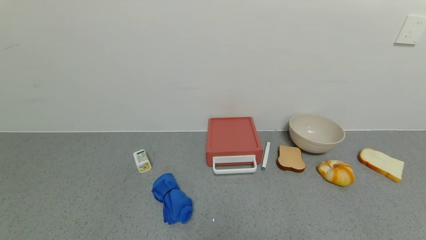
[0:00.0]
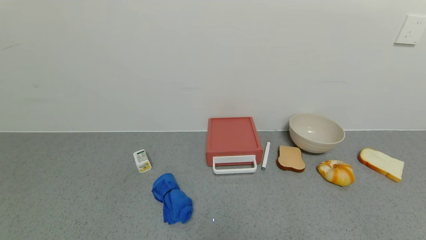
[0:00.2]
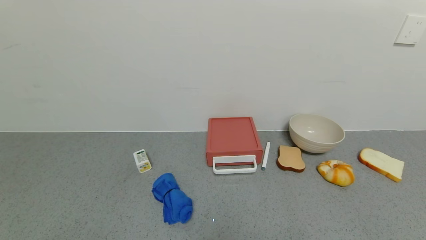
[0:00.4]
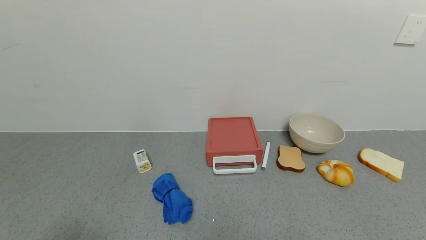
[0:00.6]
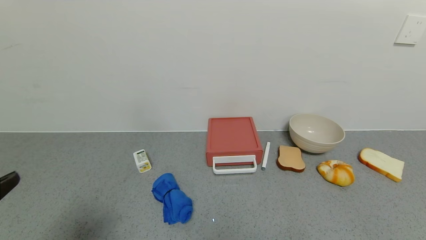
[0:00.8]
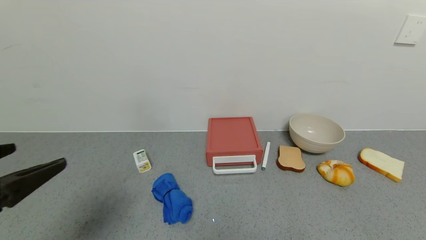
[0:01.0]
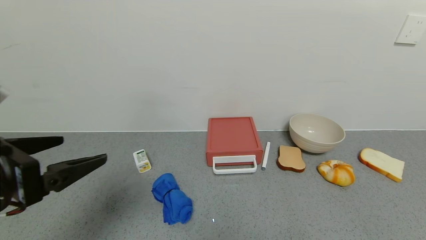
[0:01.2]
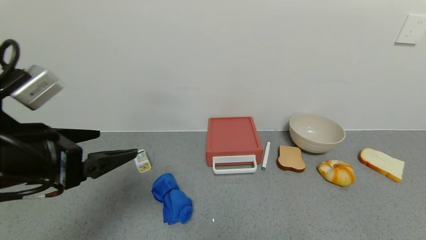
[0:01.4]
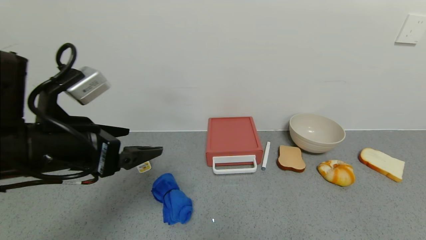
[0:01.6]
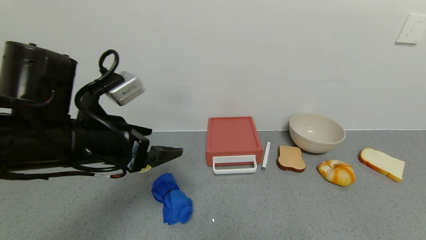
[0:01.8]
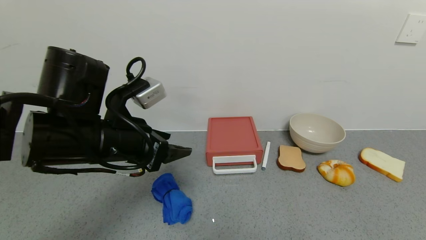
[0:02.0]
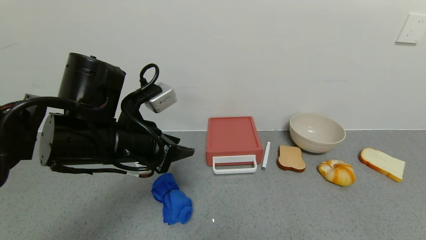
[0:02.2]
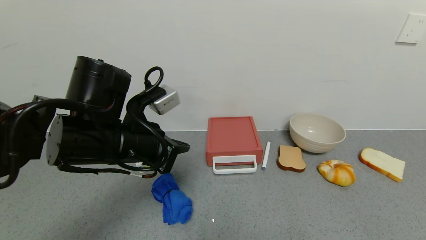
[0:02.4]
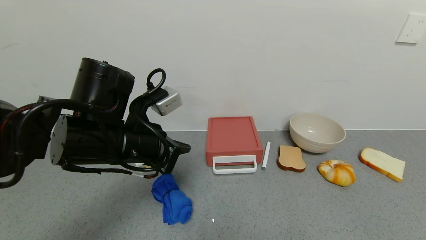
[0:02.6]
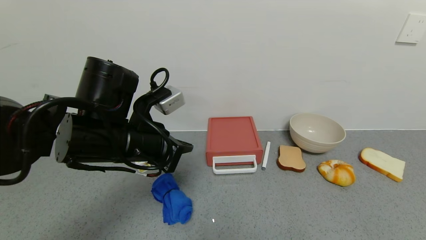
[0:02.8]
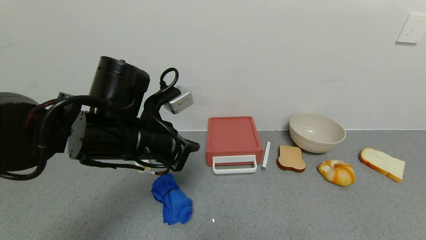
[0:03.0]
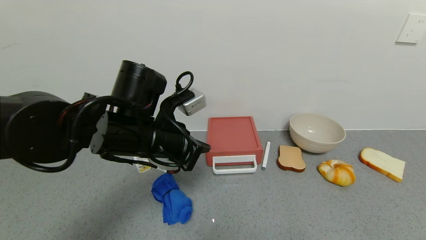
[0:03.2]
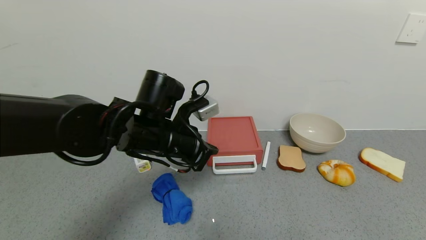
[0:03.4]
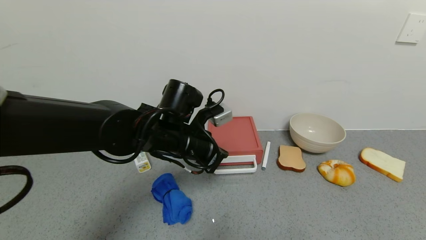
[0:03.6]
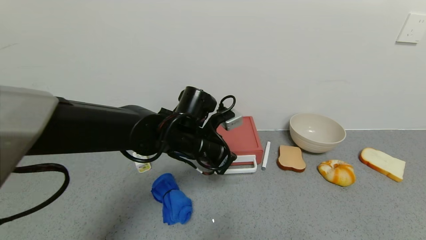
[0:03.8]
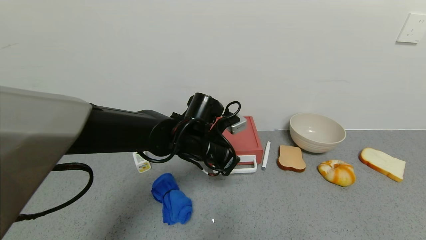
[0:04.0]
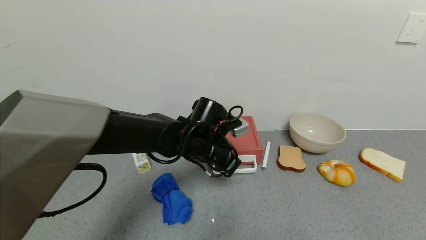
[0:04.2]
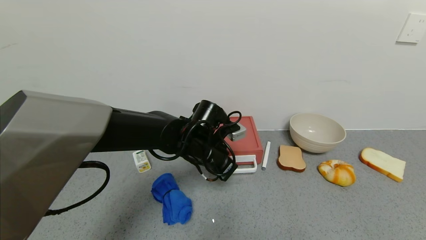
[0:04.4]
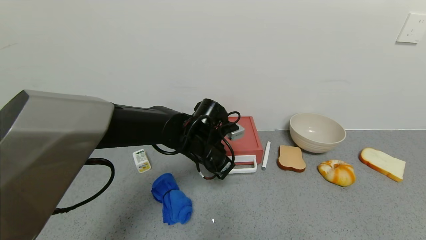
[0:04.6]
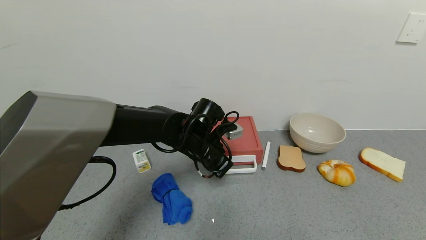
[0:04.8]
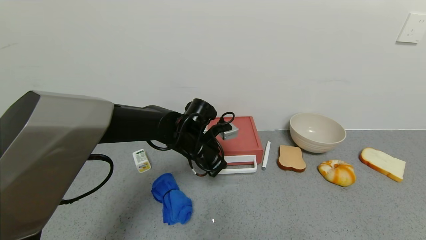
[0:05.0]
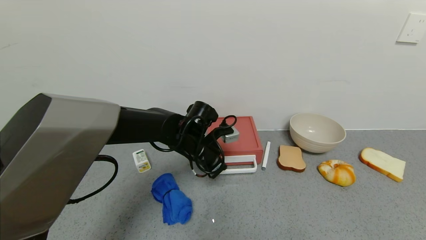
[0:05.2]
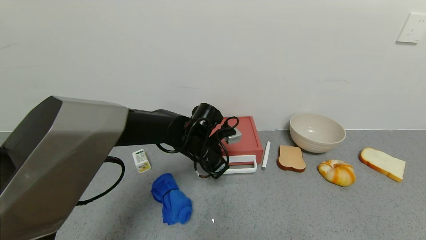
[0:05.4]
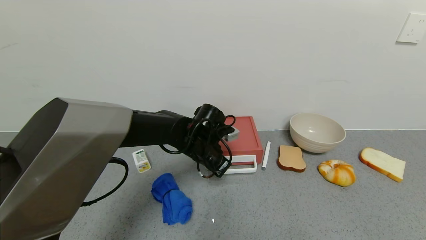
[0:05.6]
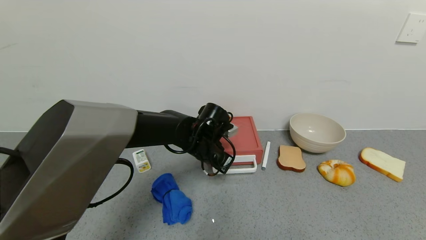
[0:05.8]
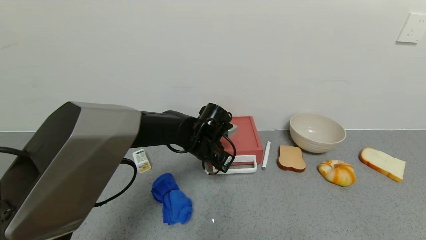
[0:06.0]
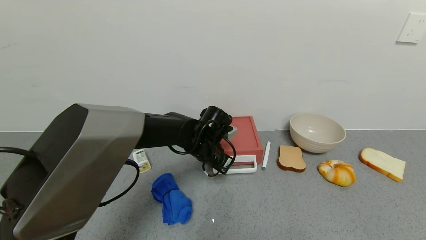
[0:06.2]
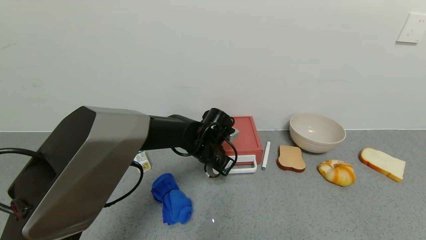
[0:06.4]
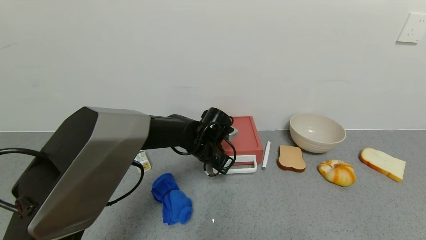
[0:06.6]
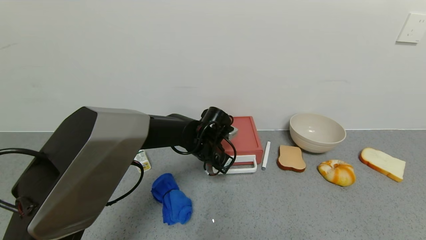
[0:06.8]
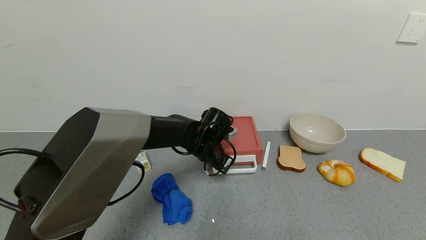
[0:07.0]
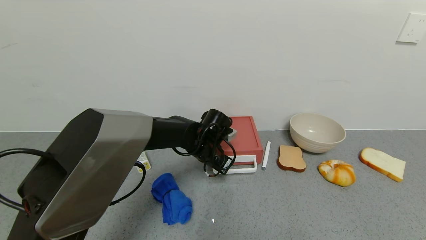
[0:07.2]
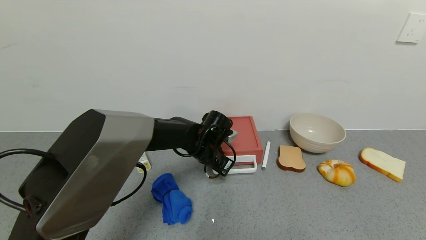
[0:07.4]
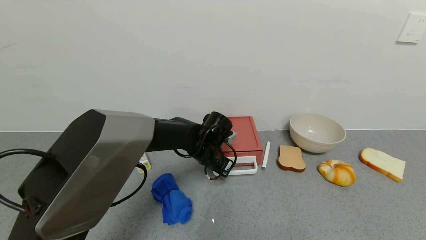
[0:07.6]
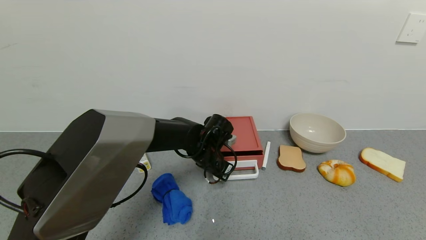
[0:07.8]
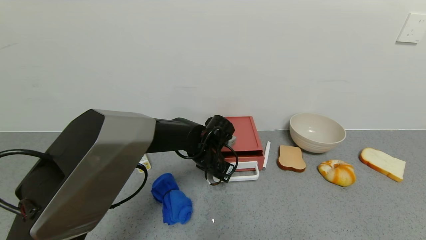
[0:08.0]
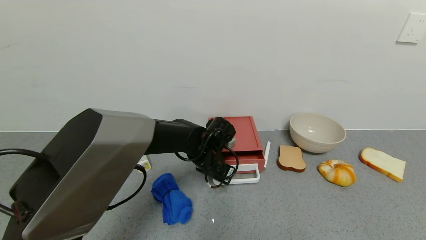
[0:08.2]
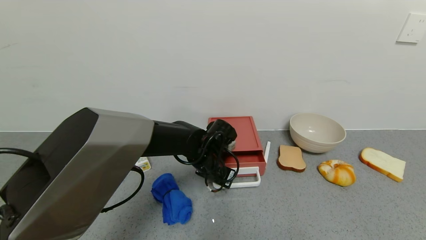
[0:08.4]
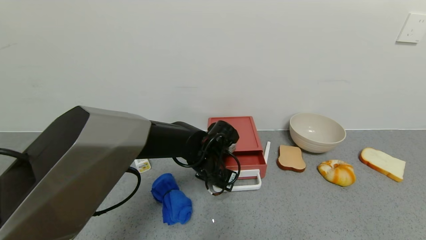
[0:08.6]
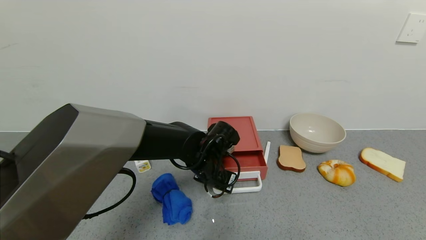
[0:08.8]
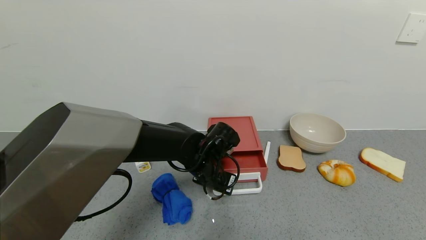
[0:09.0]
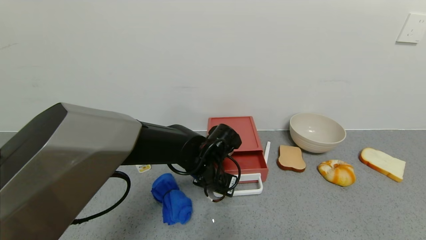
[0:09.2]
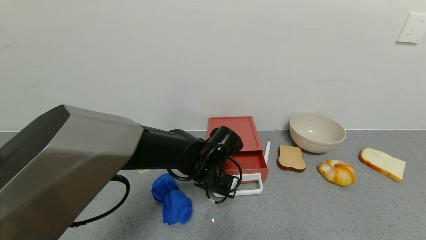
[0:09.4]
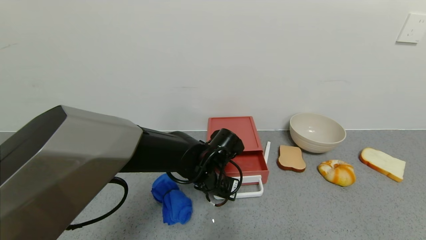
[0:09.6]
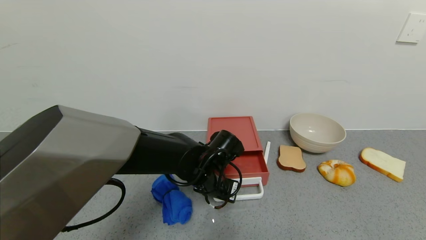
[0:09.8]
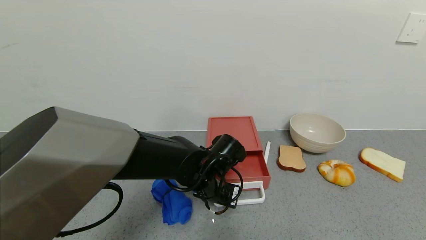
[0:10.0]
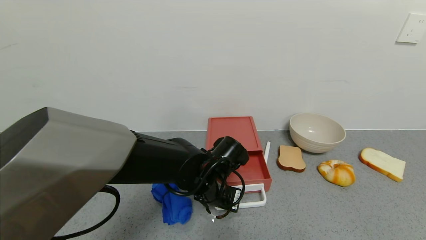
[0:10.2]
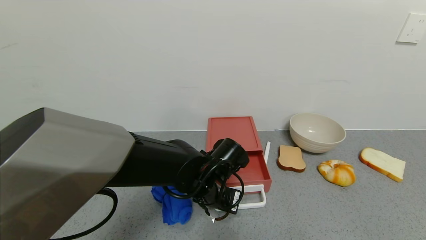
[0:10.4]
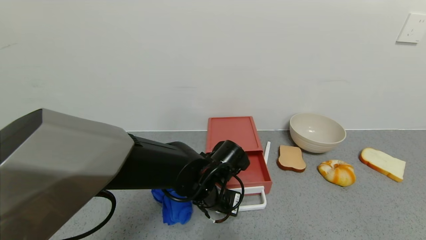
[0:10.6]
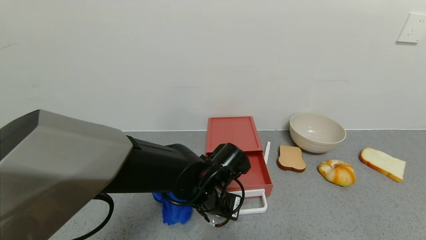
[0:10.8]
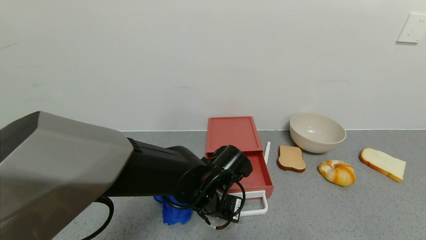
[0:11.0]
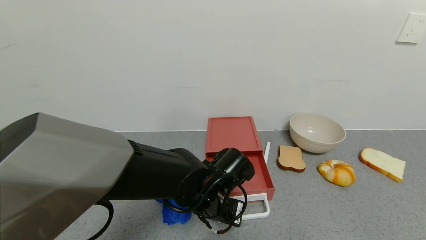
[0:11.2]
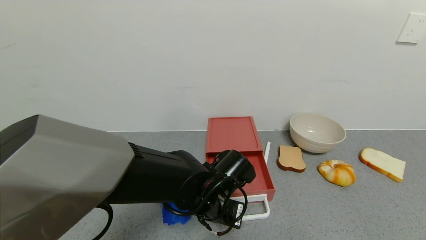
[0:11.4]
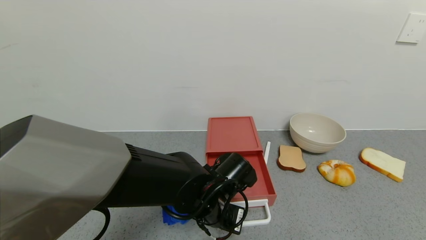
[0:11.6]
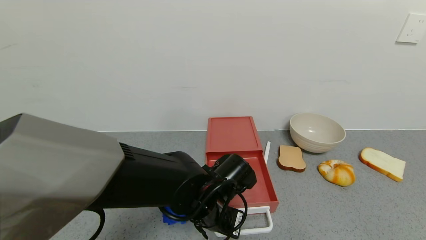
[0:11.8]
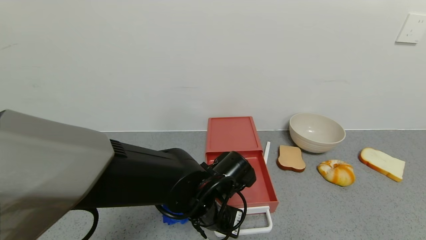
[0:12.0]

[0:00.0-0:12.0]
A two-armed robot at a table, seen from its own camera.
Task of the whole recording: use the gripper to open the drawer and close the red drawer.
0:00.0 to 0:01.6: The left gripper shifts about 30 cm forward and upward.
0:01.6 to 0:03.0: The left gripper moves to the right and forward, some 10 cm, and closes its fingers.
0:03.0 to 0:04.4: The left gripper heads downward, to the right and forward, covering approximately 15 cm.
0:04.4 to 0:06.0: The grippers stay close to where they were, moving slightly.
0:06.0 to 0:07.6: The grippers make only small movements.
0:07.6 to 0:09.0: The left gripper travels backward by roughly 5 cm.
0:09.0 to 0:10.4: The left gripper ends up approximately 5 cm from where it was.
0:10.4 to 0:12.0: The grippers move only a little.

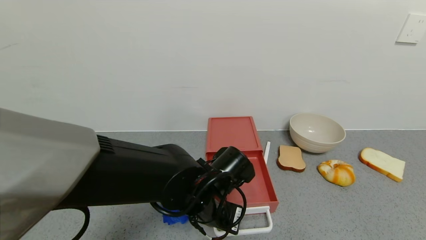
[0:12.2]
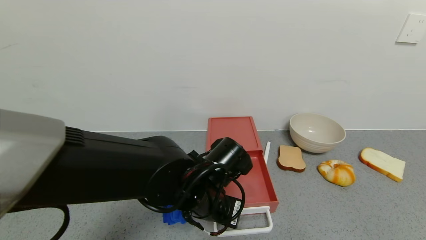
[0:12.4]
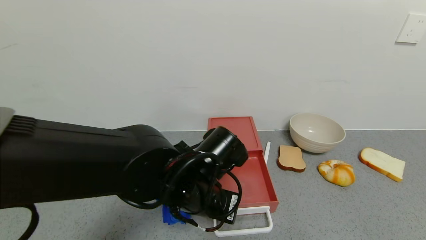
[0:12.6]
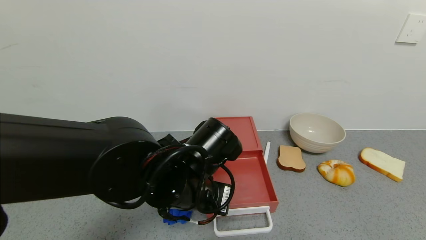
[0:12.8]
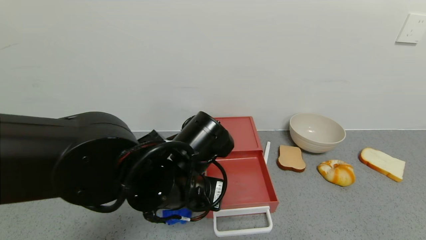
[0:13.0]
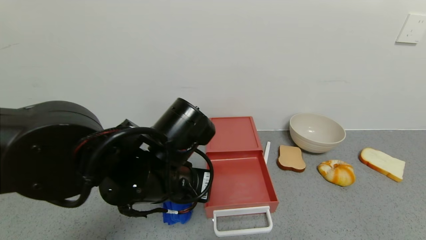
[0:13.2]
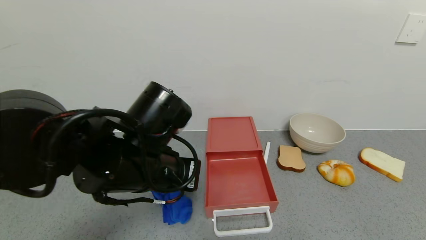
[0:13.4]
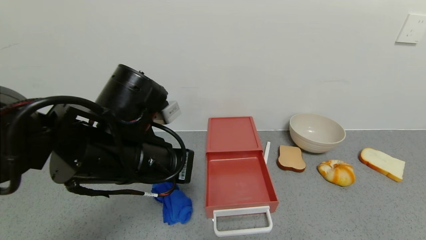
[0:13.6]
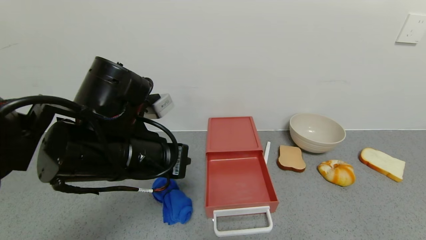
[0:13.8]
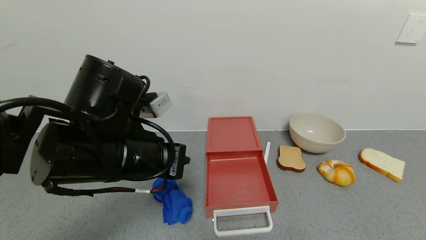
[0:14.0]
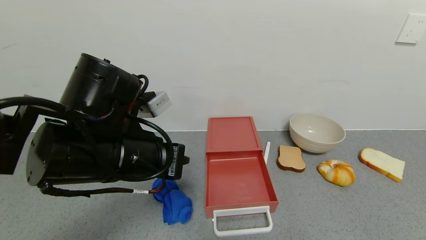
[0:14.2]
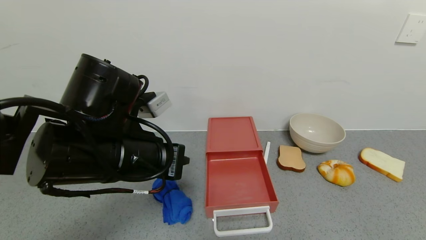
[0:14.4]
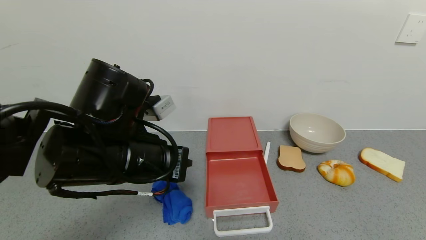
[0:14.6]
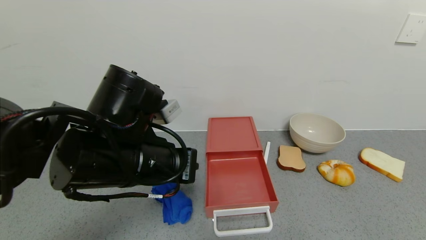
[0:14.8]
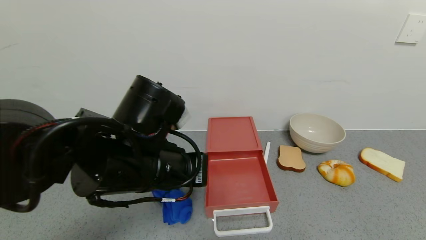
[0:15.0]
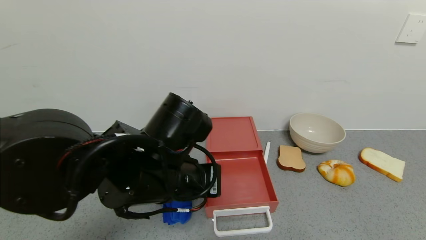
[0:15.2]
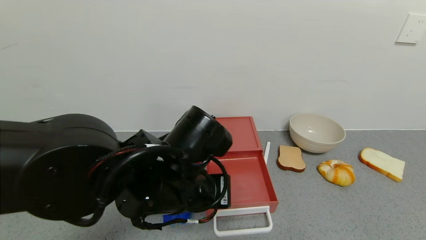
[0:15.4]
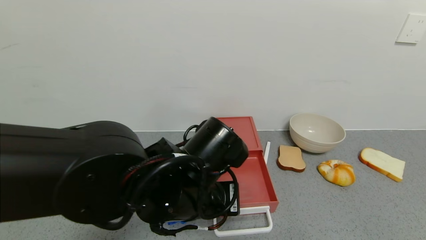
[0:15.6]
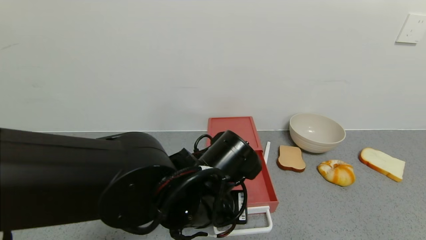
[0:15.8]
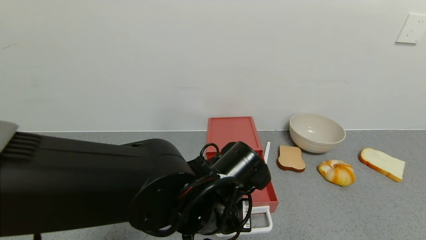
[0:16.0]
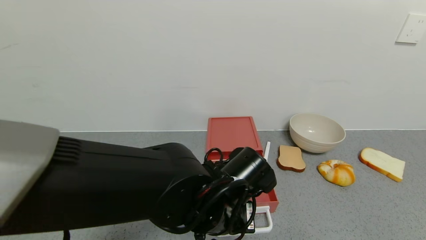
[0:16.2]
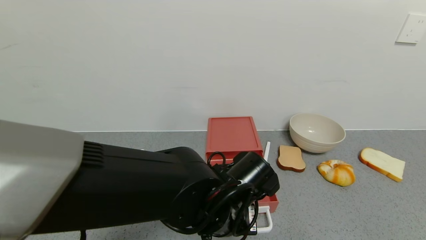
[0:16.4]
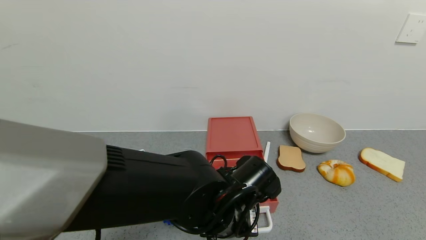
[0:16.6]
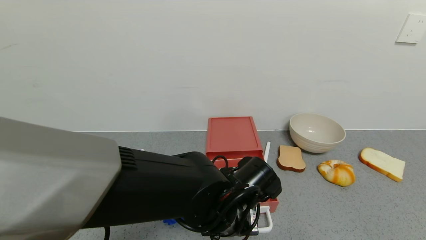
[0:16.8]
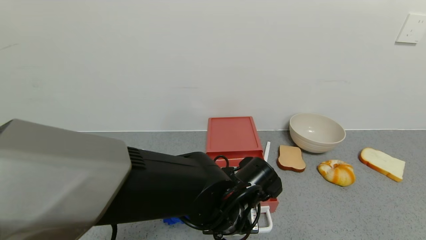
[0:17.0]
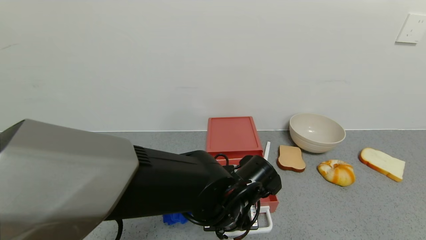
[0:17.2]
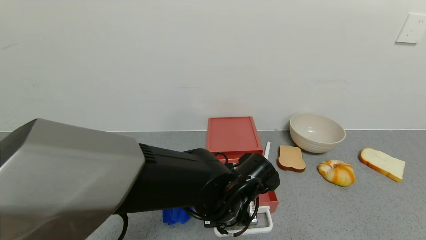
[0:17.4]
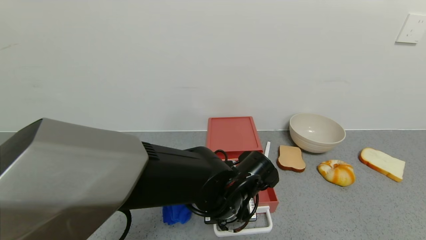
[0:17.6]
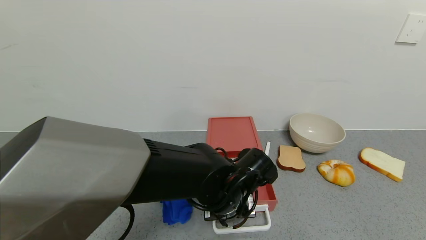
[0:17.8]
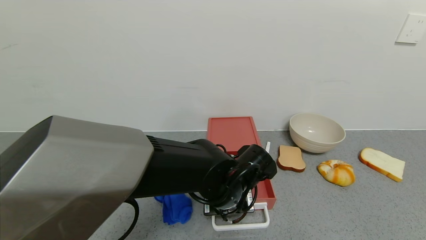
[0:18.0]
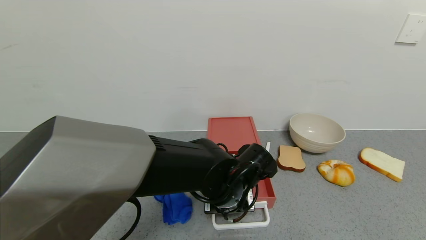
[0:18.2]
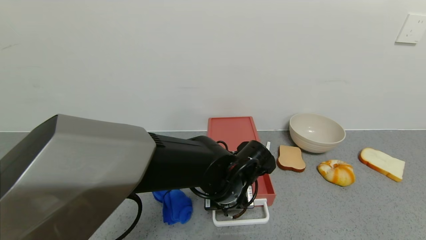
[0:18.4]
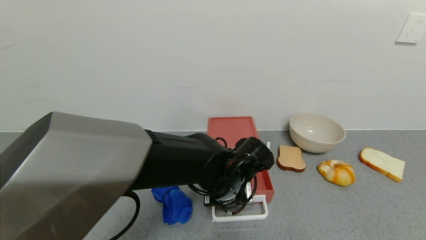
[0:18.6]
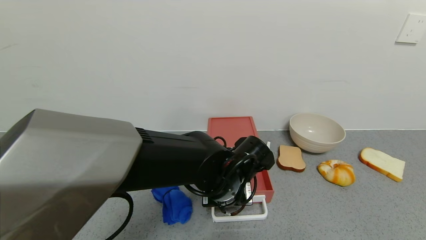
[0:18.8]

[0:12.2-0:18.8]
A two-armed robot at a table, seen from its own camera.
Task of the whole recording: use the gripper to open the drawer and close the red drawer.
0:12.2 to 0:13.8: The left gripper moves upward and to the left, roughly 15 cm.
0:13.8 to 0:15.4: The left gripper shifts roughly 5 cm to the right.
0:15.4 to 0:17.2: The left gripper travels downward and to the right by some 10 cm.
0:17.2 to 0:18.8: The grippers stay close to where they were, moving slightly.
